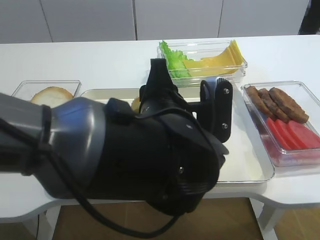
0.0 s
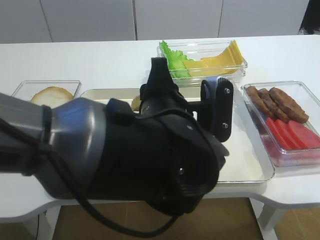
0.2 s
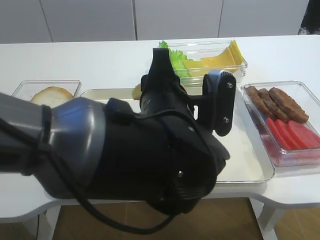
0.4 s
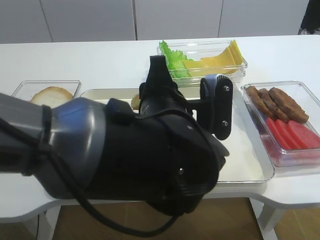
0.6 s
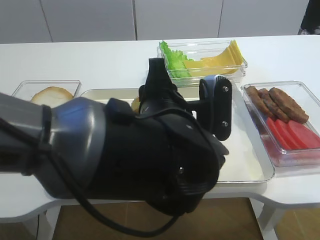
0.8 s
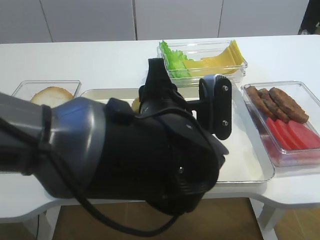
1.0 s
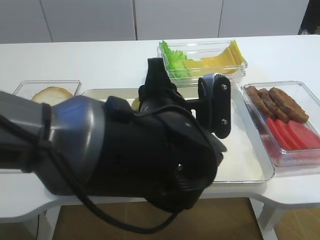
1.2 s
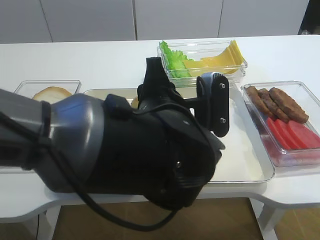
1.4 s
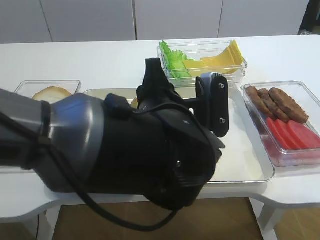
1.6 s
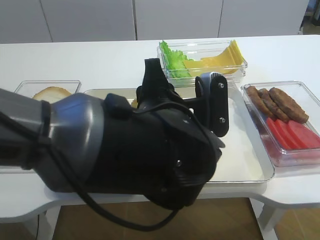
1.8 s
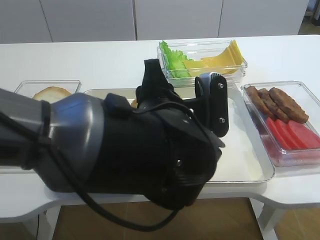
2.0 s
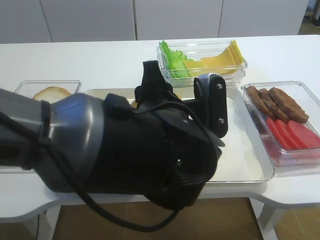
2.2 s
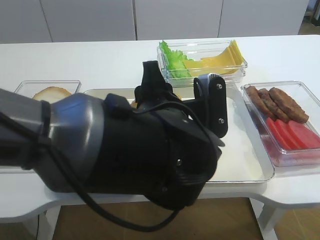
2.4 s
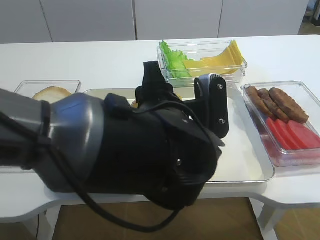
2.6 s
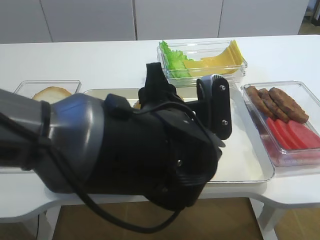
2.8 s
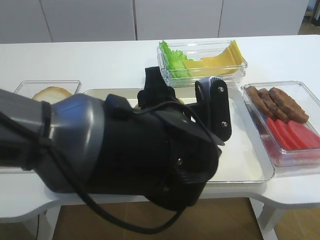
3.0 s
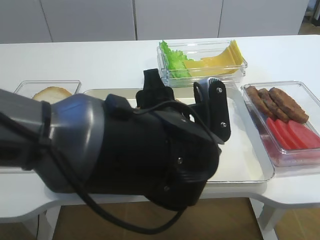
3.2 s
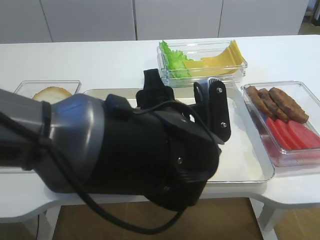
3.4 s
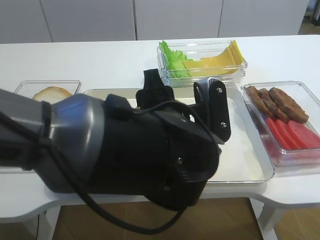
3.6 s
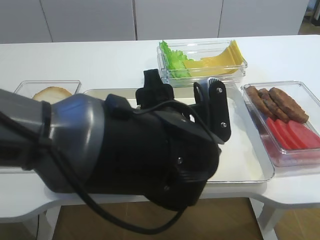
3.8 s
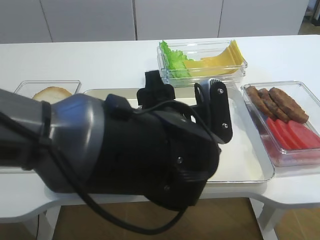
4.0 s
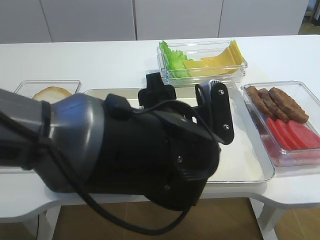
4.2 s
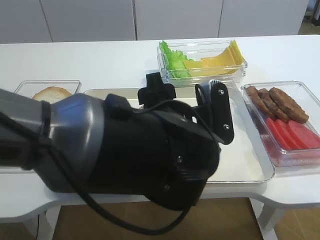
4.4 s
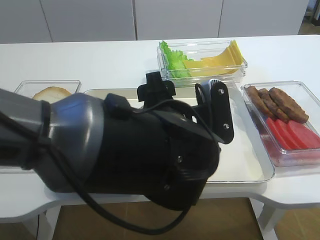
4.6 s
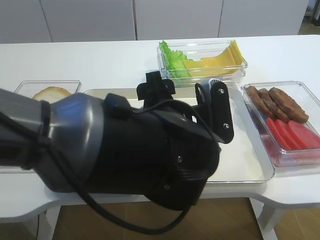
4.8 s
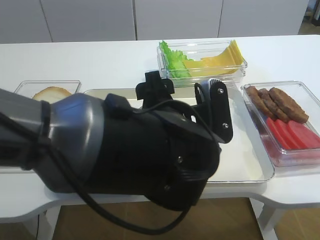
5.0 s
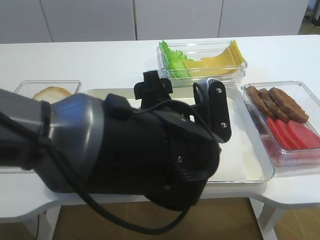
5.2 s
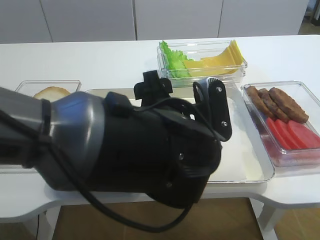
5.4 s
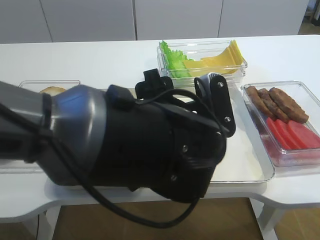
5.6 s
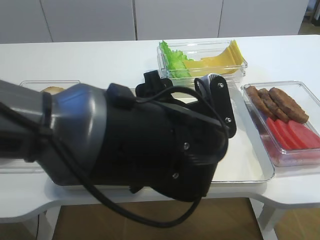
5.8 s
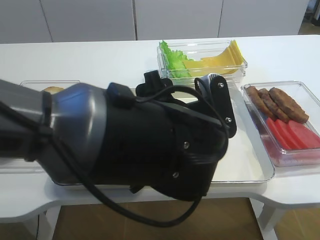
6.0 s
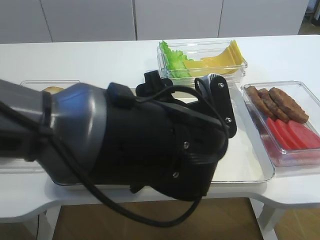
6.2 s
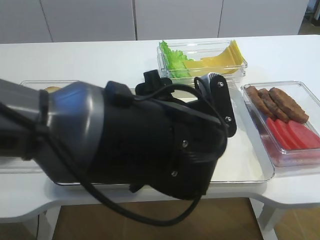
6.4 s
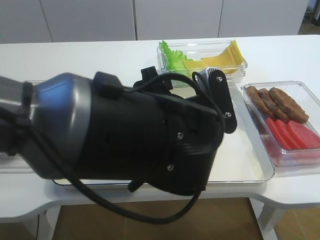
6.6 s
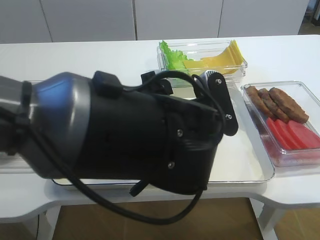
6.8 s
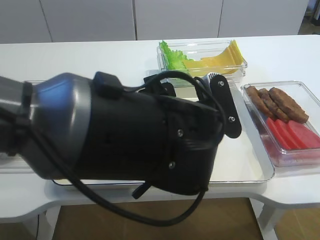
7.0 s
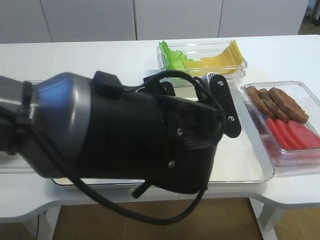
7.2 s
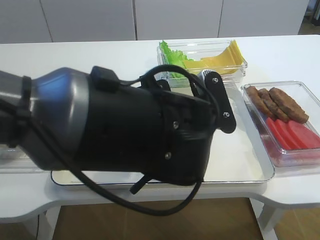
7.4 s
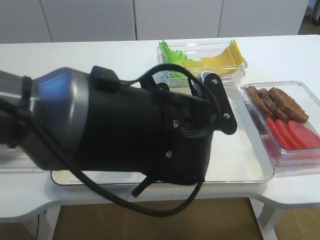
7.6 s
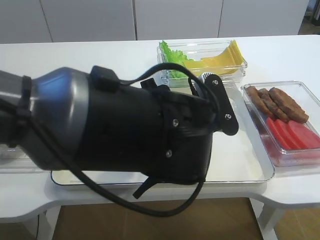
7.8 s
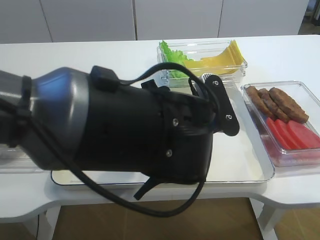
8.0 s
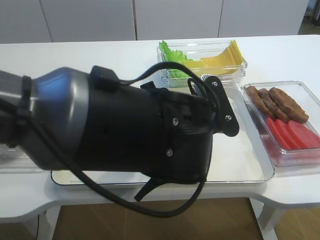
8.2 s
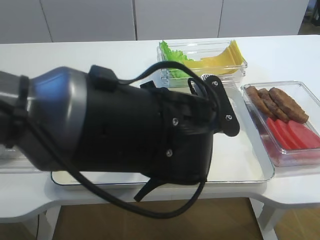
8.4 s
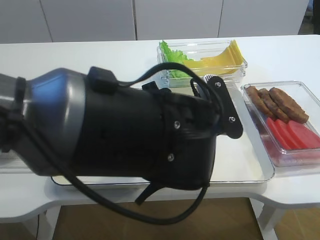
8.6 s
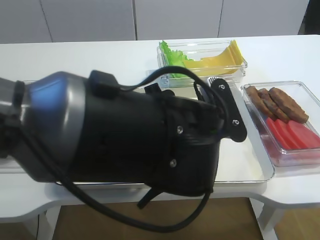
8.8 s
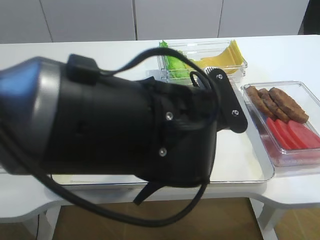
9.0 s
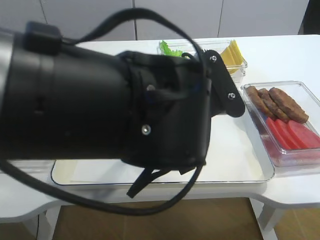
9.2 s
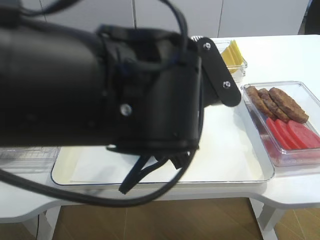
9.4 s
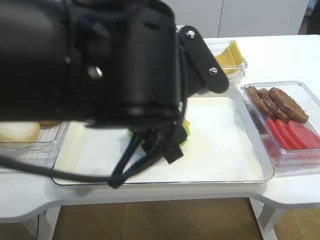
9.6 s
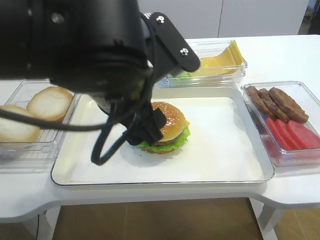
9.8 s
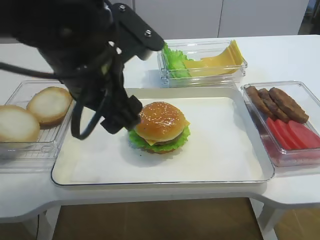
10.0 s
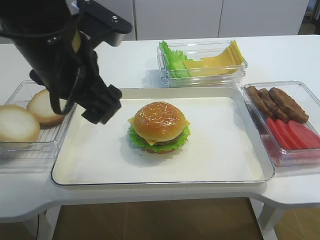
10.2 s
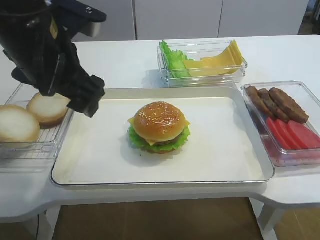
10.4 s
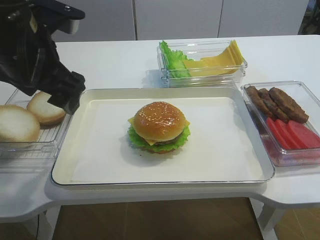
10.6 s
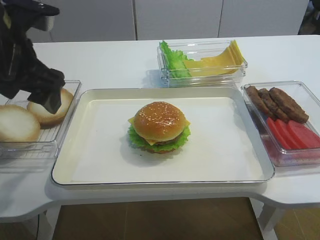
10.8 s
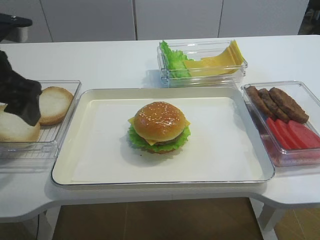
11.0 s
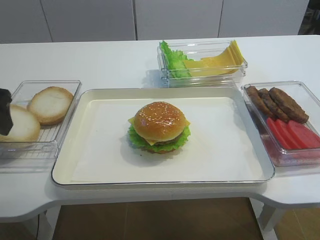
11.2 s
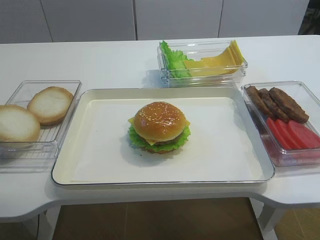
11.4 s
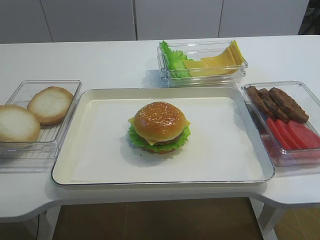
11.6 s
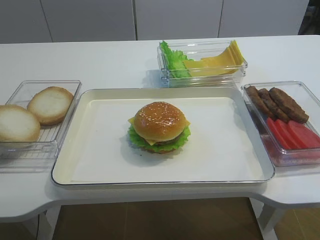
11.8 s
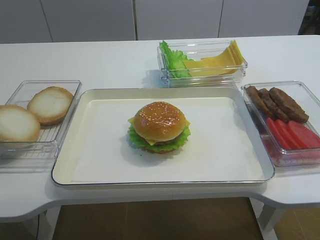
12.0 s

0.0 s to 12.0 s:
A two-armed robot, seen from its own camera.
Step, 0.0 to 9.0 s: Place the hamburger lid on the cheese slice with the left gripper.
0.0 to 3.0 s: There are only small adjustments of the grippers.
3.0 to 4.4 s: The left gripper opens its fingers.
4.4 to 6.0 s: Both grippers stay put.
6.0 to 9.0 s: The grippers make only small movements.
9.0 to 10.4 s: The left gripper goes about 15 cm to the left and upward.
10.4 to 12.0 s: The left gripper travels to the left and backward by about 20 cm.
